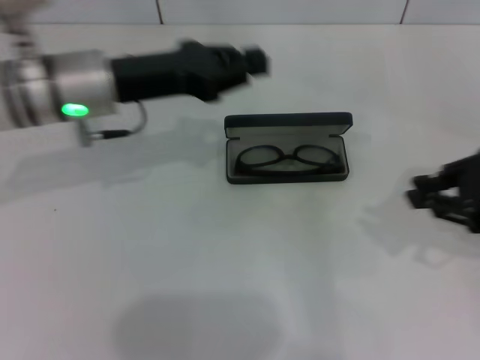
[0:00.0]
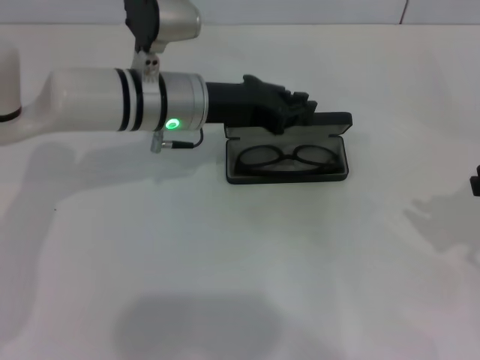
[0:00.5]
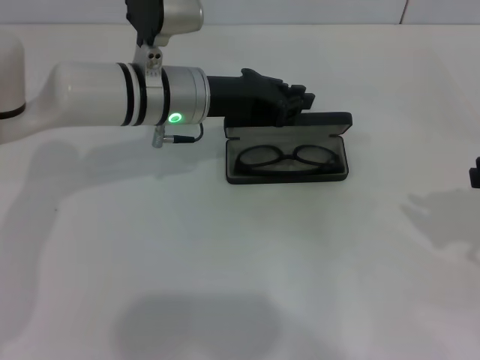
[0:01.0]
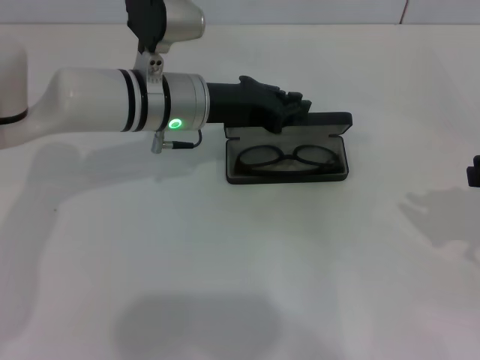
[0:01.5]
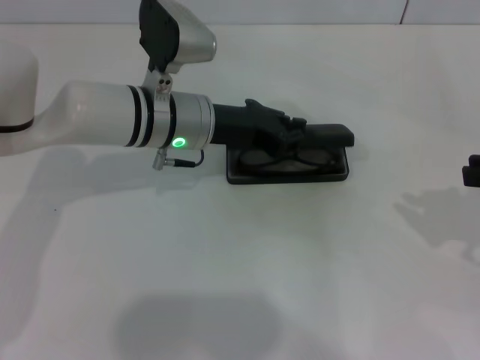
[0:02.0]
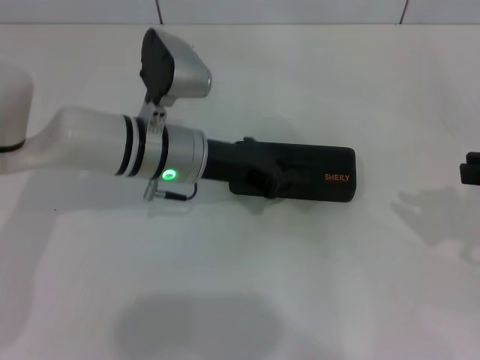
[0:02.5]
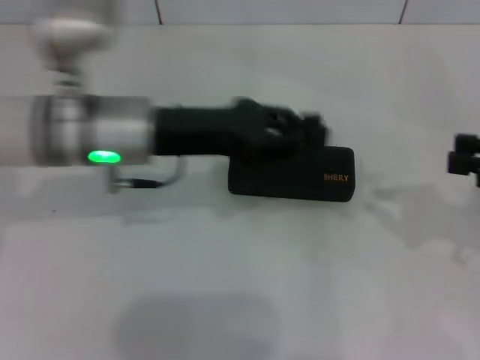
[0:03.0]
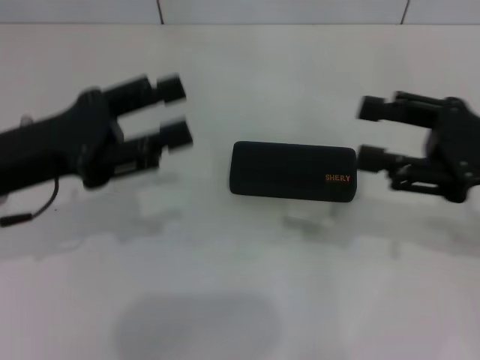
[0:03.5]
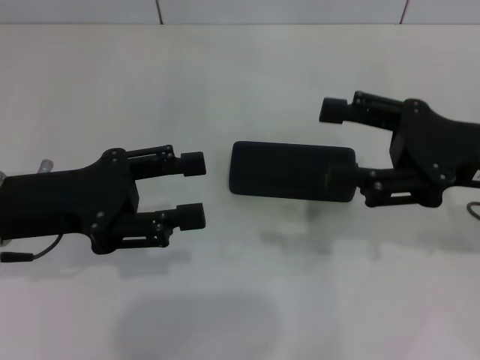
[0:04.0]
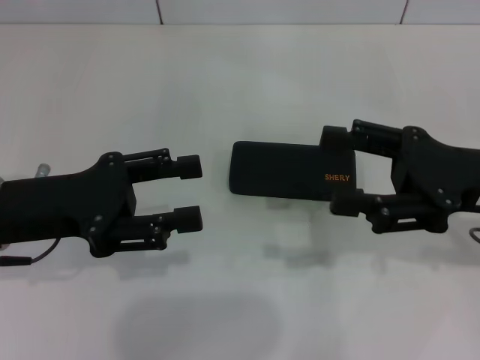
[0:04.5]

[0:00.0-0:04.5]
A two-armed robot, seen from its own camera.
Step, 0:00.0 to 0:02.0: Close the glasses case with your left hand.
0:00.0 to 0:02.0: The two grippers go about 10 cm to the right.
0:02.0 to 0:04.5: The right gripper shifts roughly 10 cm to the left, and opens up. The left gripper shifts approximately 20 cm to the left and backward, and opens up.
